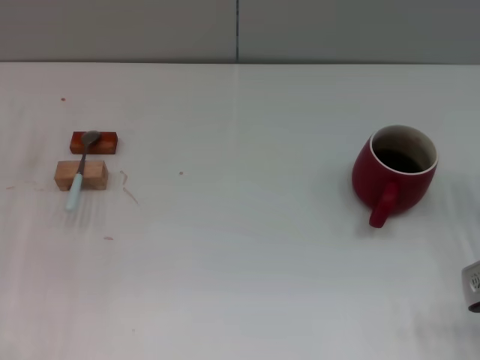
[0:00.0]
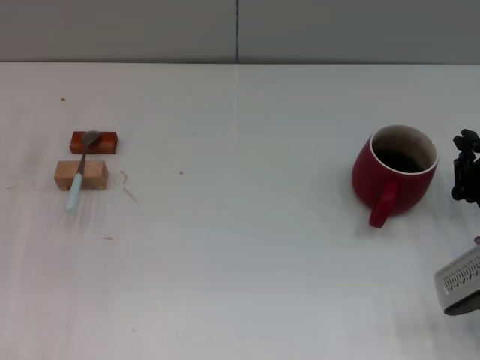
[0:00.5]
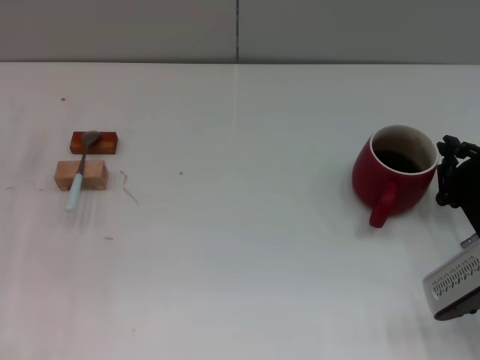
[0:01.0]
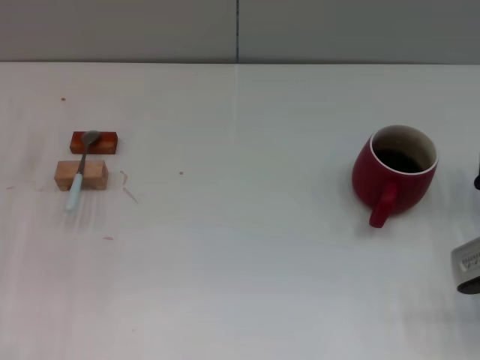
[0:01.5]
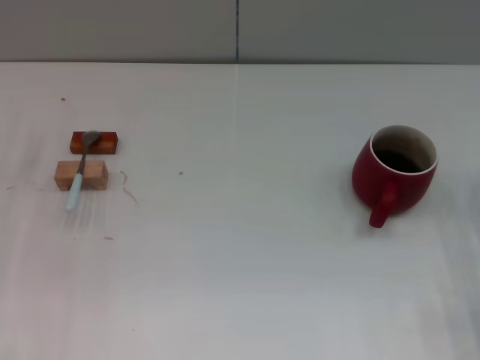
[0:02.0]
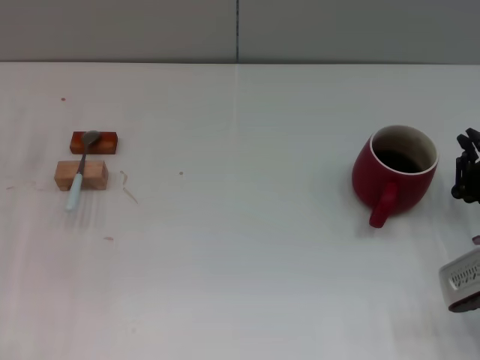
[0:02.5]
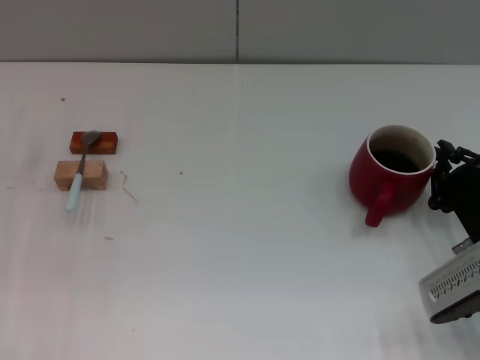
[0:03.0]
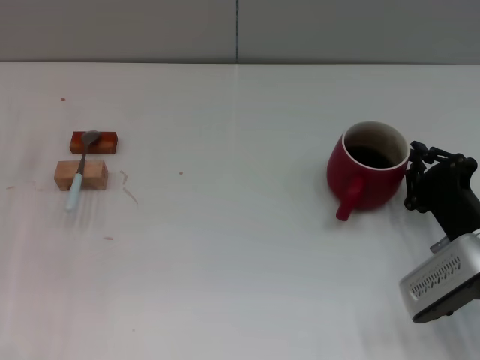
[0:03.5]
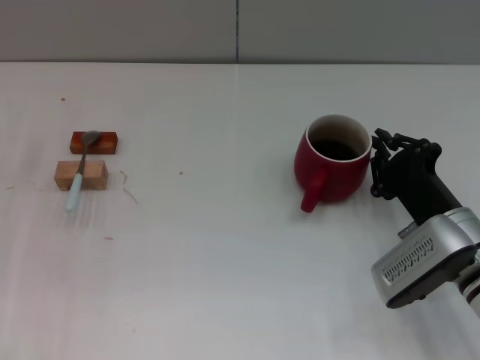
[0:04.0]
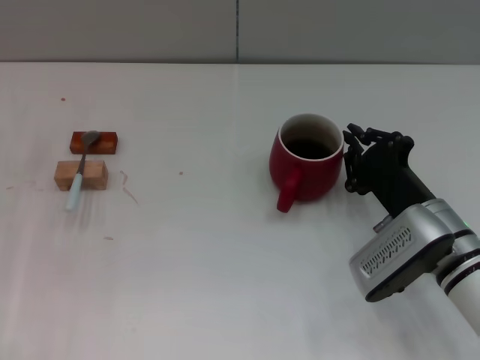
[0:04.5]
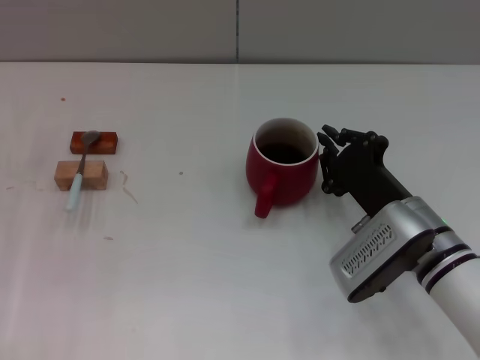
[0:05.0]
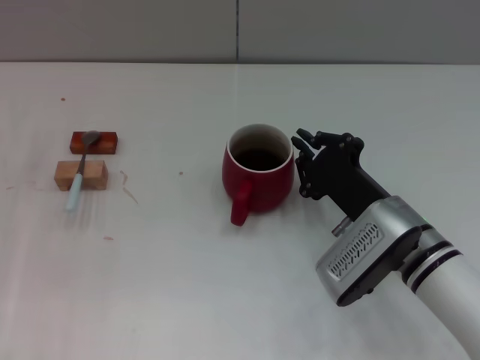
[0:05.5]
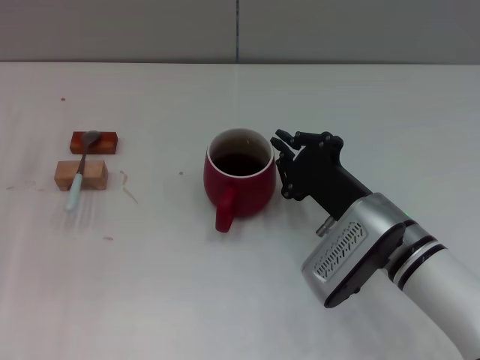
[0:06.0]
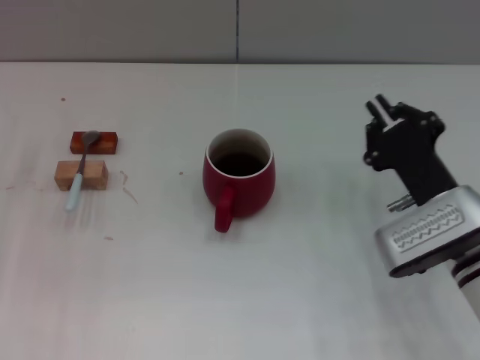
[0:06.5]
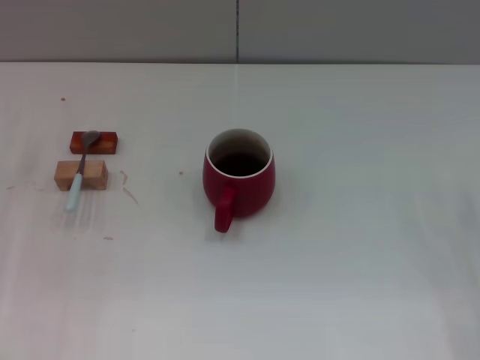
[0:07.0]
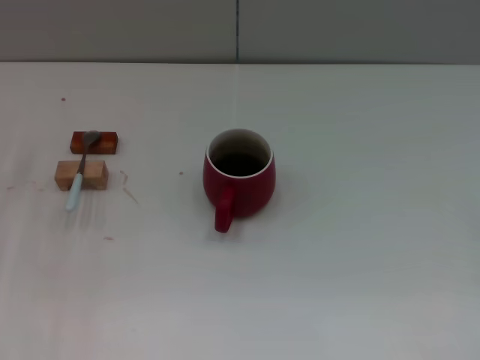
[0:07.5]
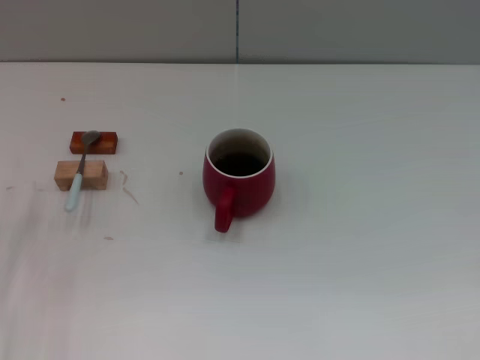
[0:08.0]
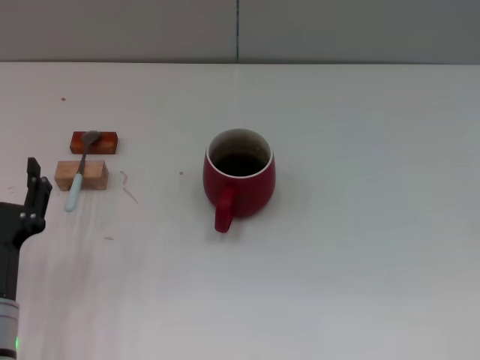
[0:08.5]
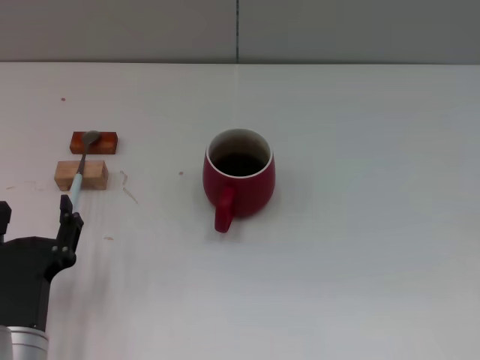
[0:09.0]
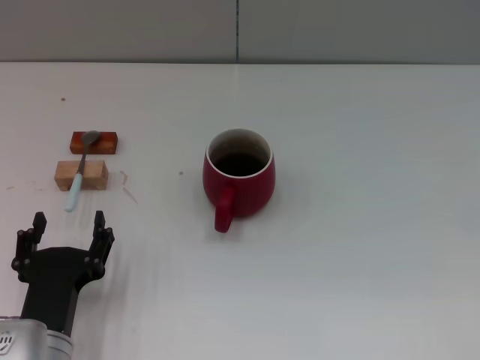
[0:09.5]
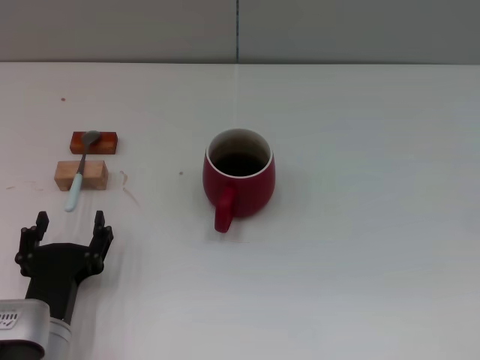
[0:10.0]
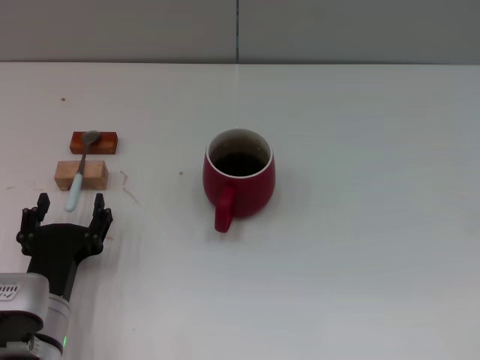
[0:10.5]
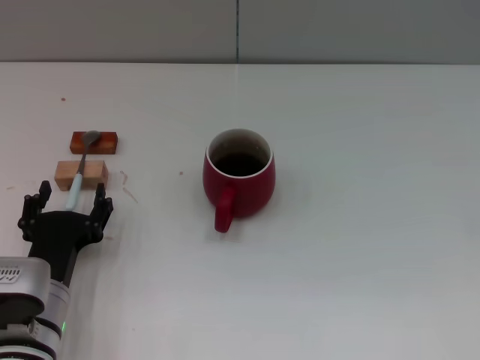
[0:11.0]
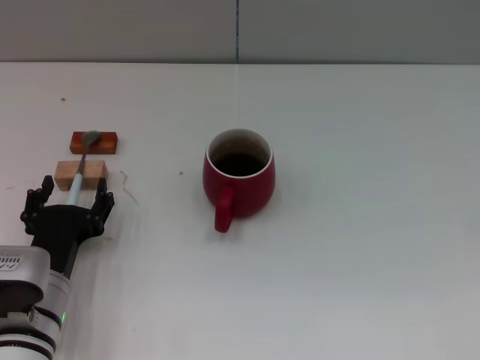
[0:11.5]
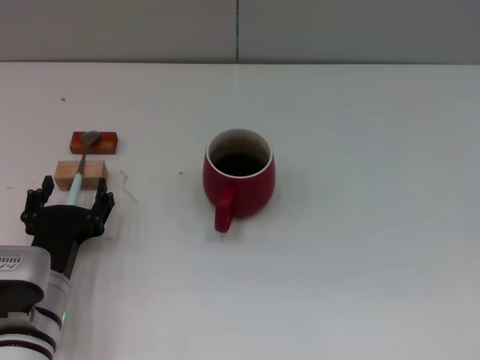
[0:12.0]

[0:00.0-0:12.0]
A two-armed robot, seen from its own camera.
Task of the whole recording: Move the red cup to the center, lift the blue spoon, stir it three times in the cup, and put the spoon into the cup.
Step, 0:00.0 to 0:06.0: Move the cup with coffee to the center of view with the right gripper.
0:02.0 to 0:04.0: The right gripper travels to the left by about 10 cm.
0:04.0 to 0:06.0: The right gripper travels to the left by some 10 cm.
0:06.0 to 0:08.0: The right gripper moves to the right, roughly 30 cm, and opens, while the left gripper goes about 10 cm backward.
0:08.0 to 0:10.0: The left gripper is displaced to the right and backward by some 10 cm.
0:10.0 to 0:12.0: The left gripper changes place by roughly 5 cm.

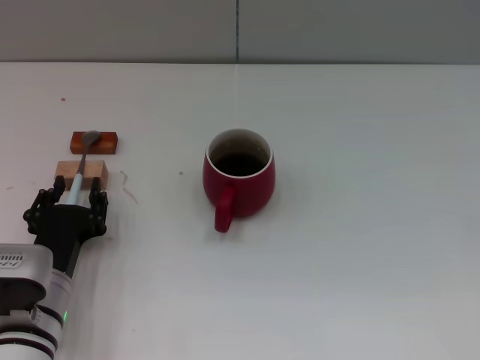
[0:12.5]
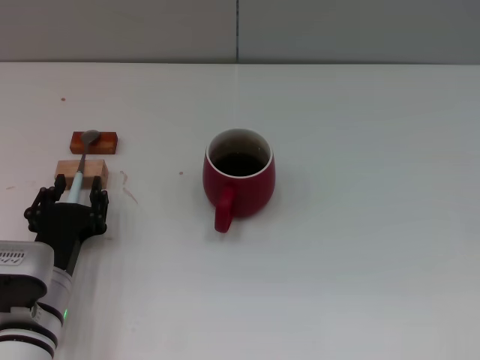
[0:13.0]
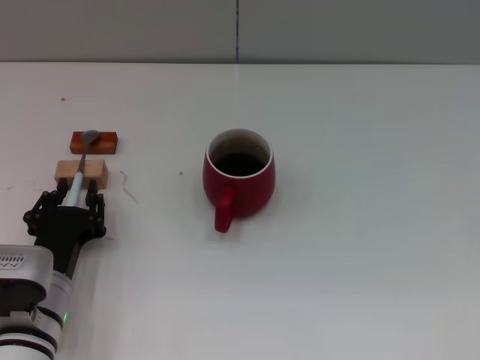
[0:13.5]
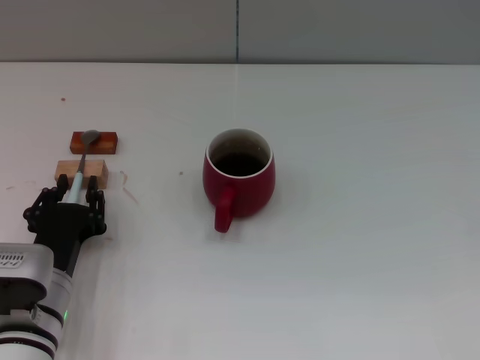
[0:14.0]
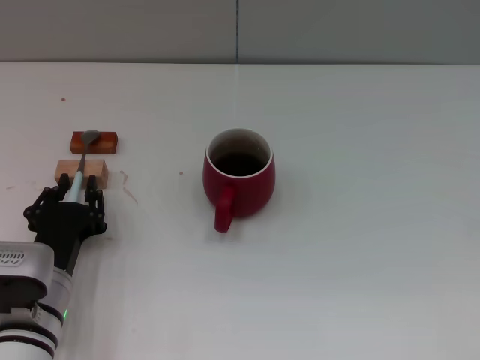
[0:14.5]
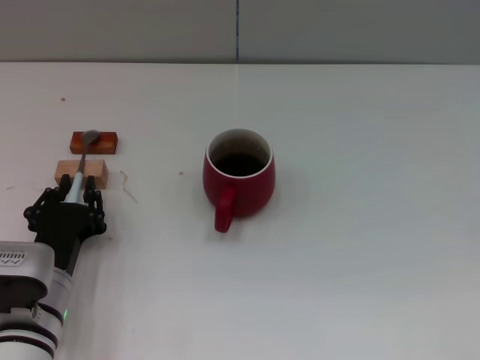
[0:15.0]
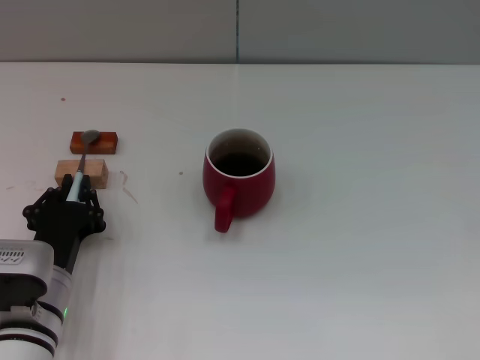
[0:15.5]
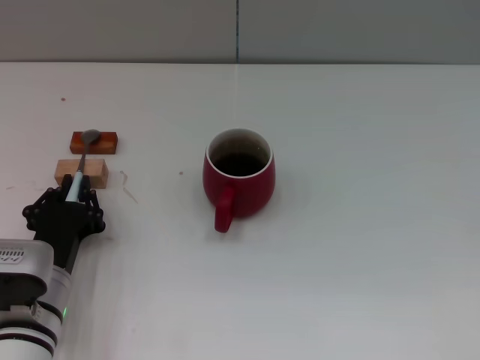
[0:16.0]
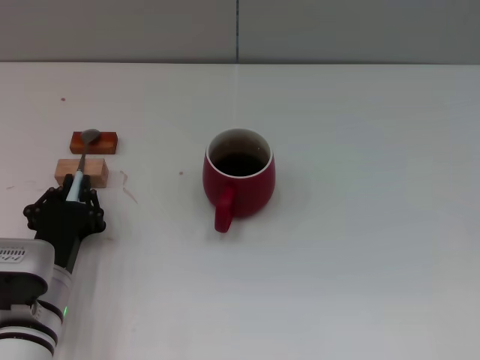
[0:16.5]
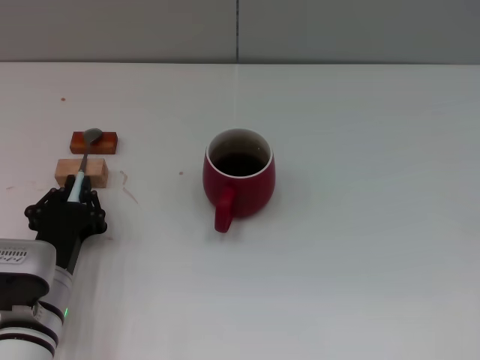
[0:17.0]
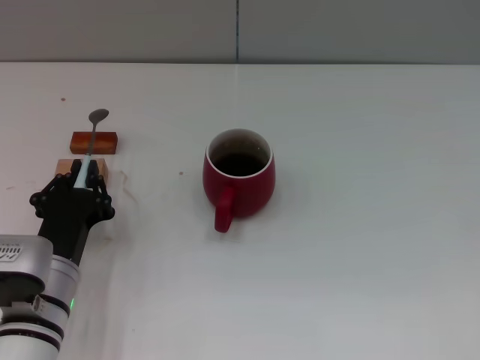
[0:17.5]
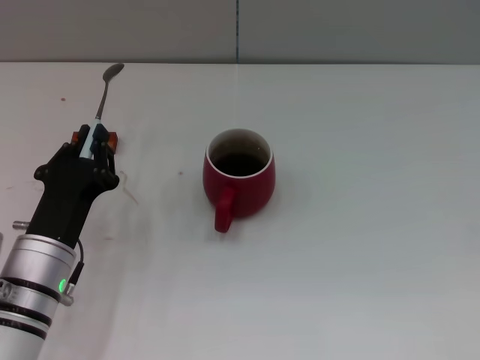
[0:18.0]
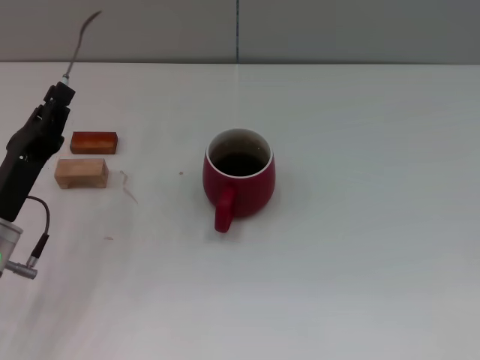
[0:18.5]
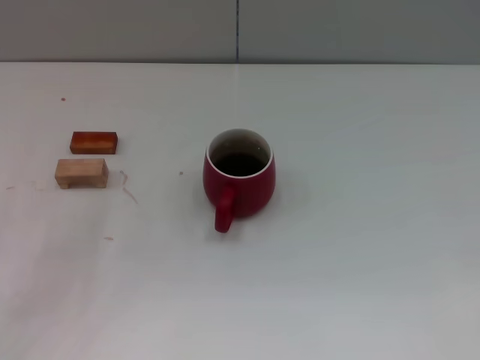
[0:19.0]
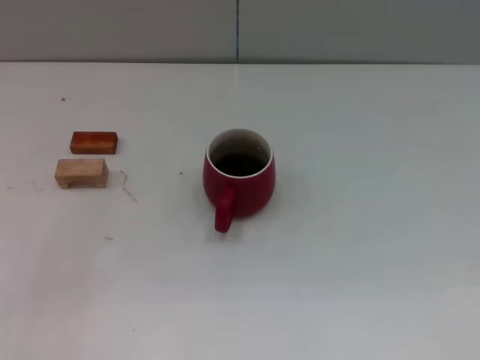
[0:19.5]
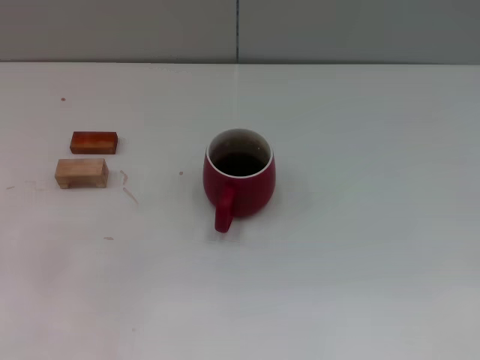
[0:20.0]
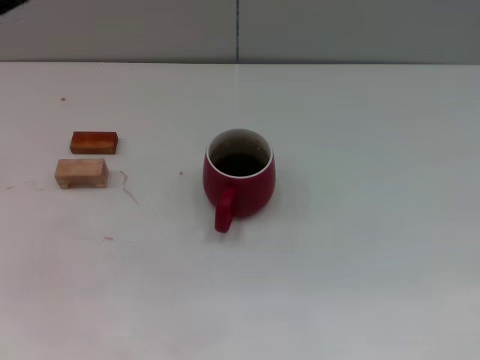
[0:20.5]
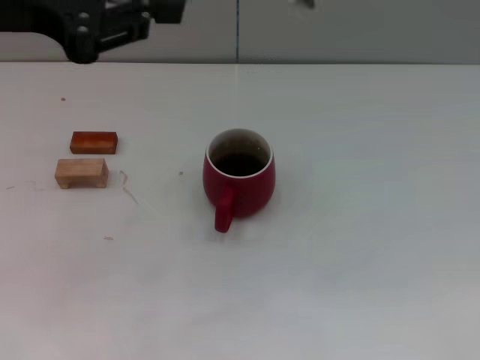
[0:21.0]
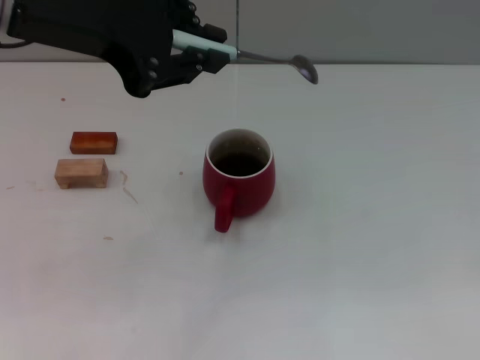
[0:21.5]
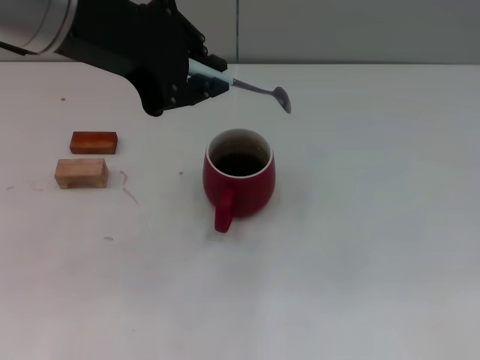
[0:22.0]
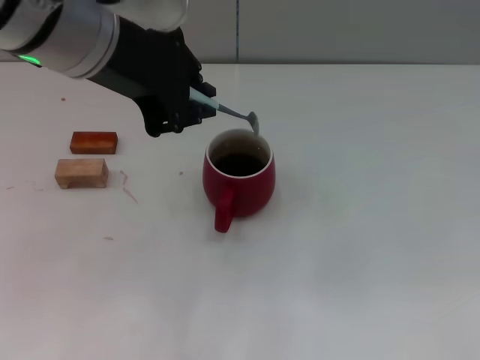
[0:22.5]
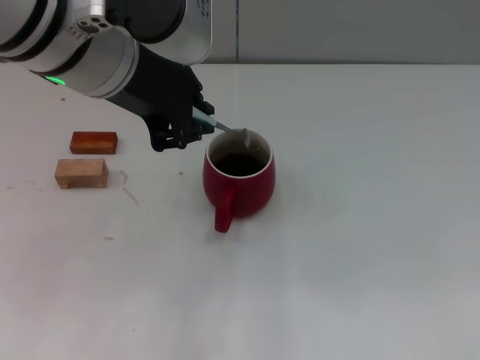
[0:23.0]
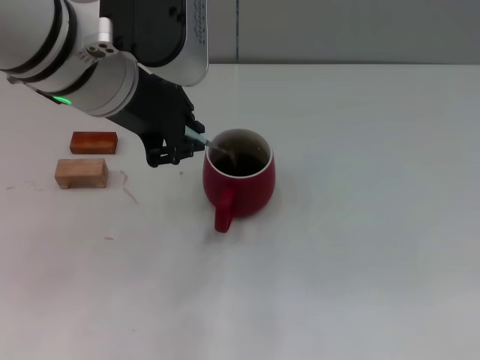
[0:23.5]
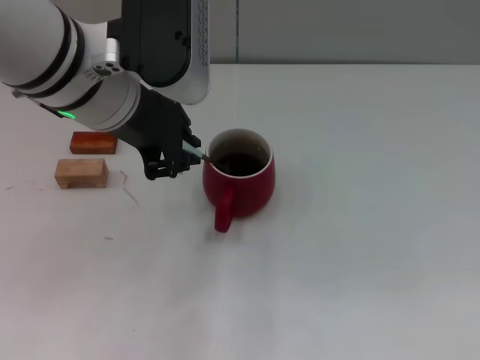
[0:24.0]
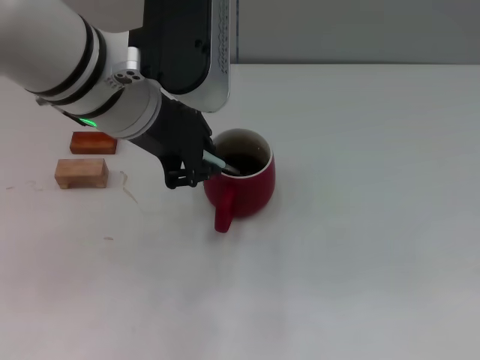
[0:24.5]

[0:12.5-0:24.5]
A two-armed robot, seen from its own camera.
Task of the whole recording: Move the red cup to the center, lift the blue spoon, stir it three times in the cup, and put the spoon into the cup.
Step, 0:12.5 to 0:18.5: Pick up the spoon with the left gripper.
0:12.5 to 0:14.5: The left gripper closes its fingers.
0:14.5 to 0:16.5: Both grippers stay put.
0:16.5 to 0:18.5: The left gripper ends up some 5 cm from where it was.
0:18.5 to 0:20.5: The left gripper goes about 25 cm upward.
0:20.5 to 0:22.5: The left gripper moves to the right, roughly 15 cm.
0:22.5 to 0:24.5: The left gripper moves downward, roughly 5 cm.

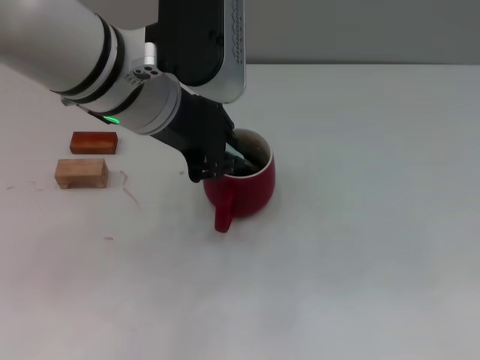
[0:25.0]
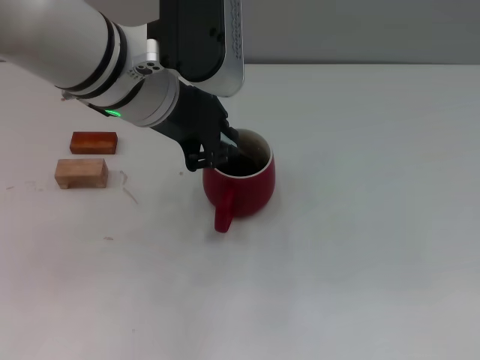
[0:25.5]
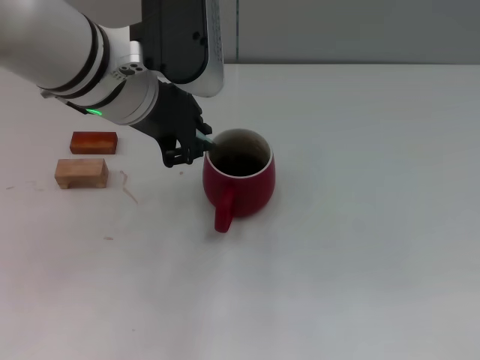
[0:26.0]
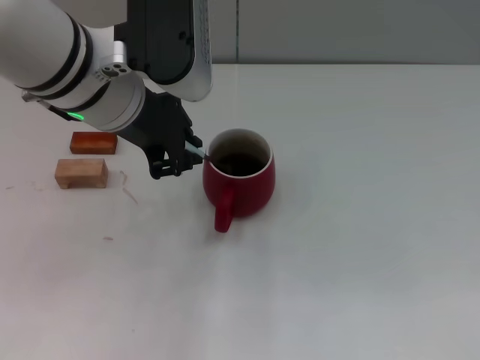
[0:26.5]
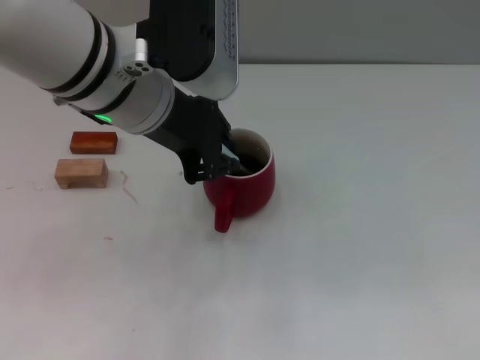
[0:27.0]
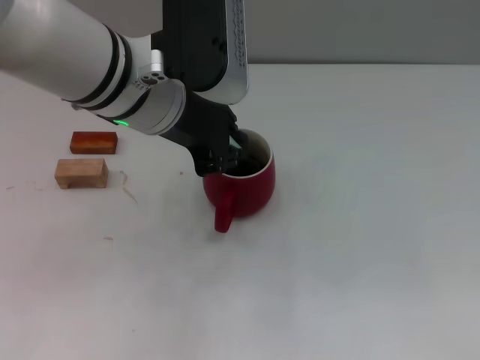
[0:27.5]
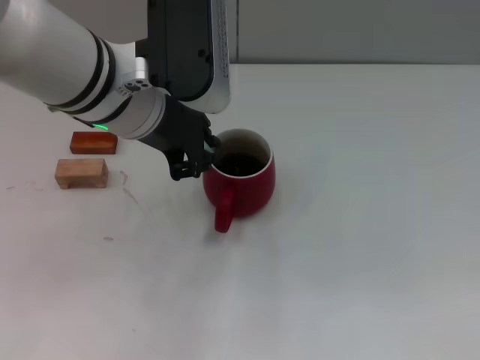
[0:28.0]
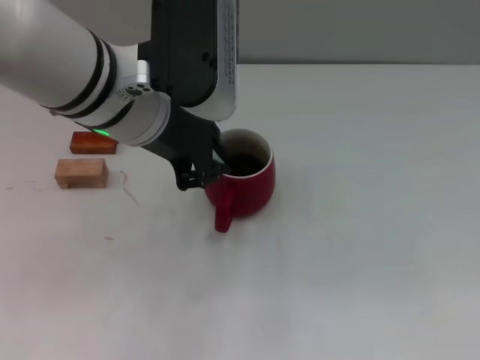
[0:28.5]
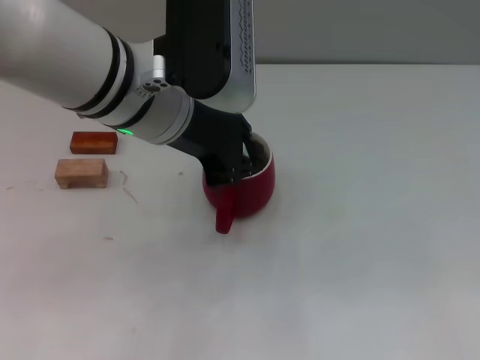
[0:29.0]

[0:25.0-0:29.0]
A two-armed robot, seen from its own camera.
Task of the whole recording: Move the red cup to the center, lift the blue spoon, stir it three times in the cup, and put the spoon into the cup.
0:25.0 to 0:29.0: There are only small adjustments of the grippers.
